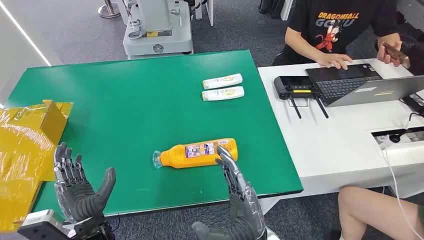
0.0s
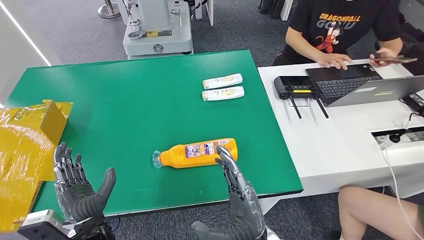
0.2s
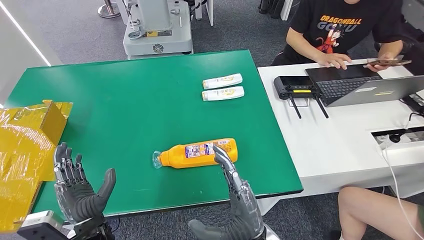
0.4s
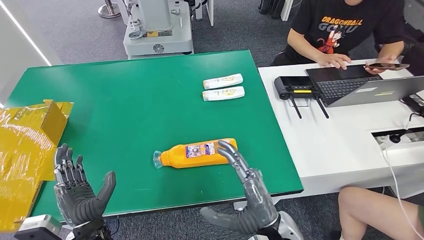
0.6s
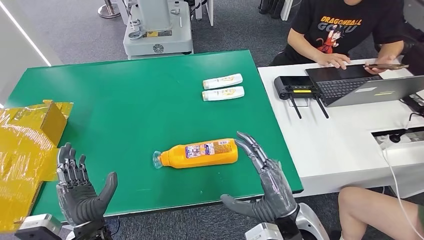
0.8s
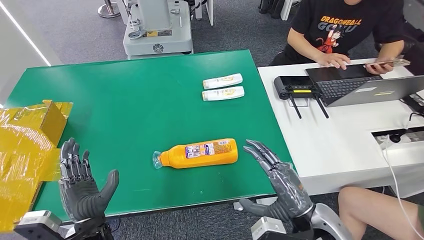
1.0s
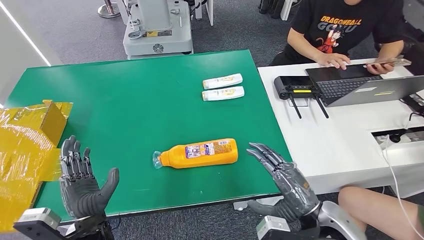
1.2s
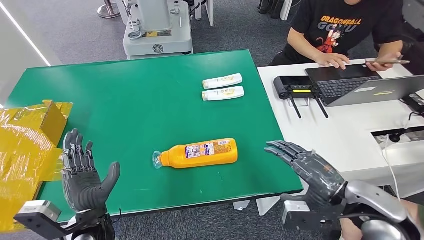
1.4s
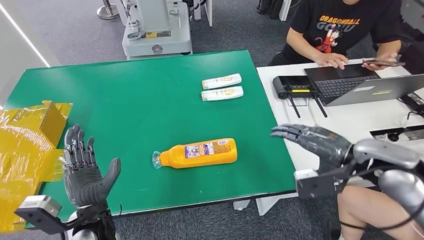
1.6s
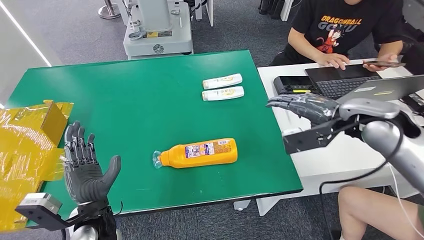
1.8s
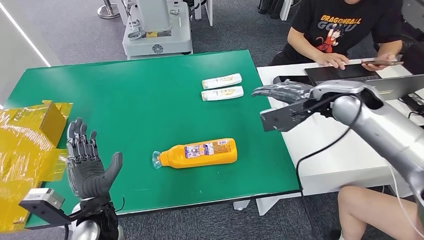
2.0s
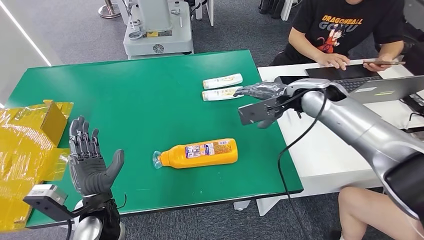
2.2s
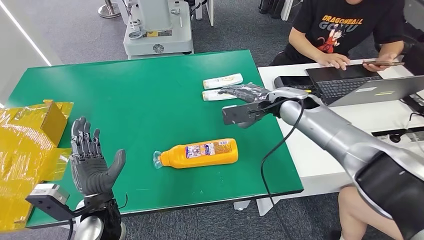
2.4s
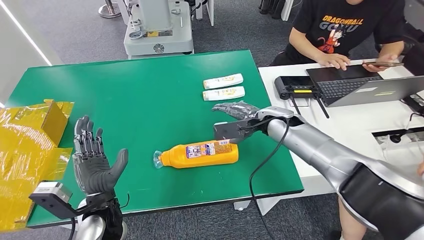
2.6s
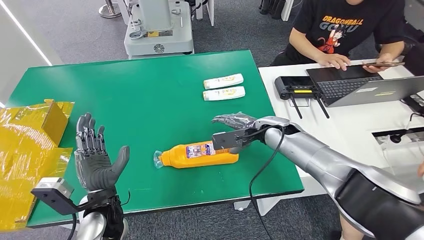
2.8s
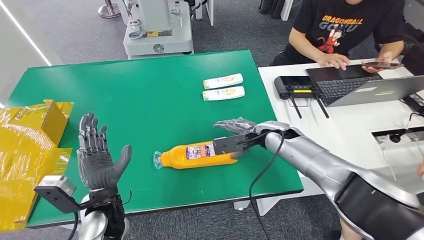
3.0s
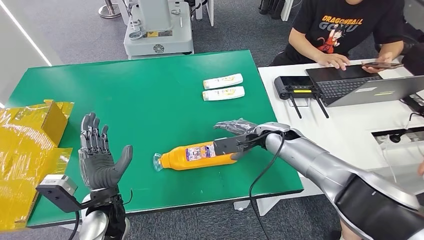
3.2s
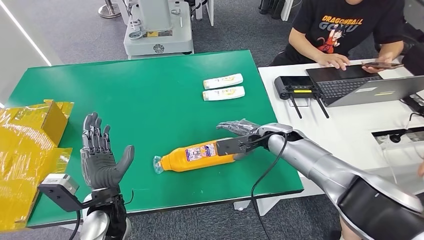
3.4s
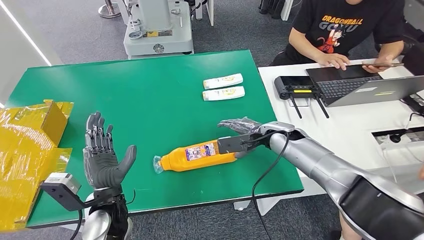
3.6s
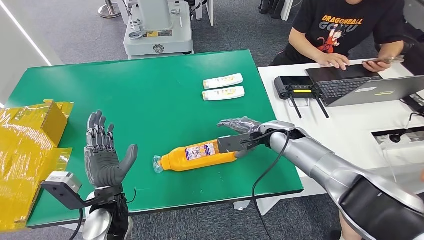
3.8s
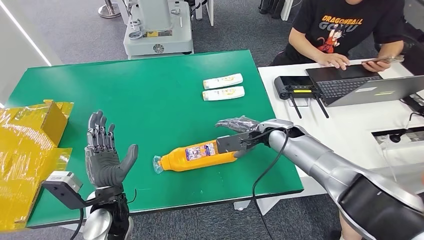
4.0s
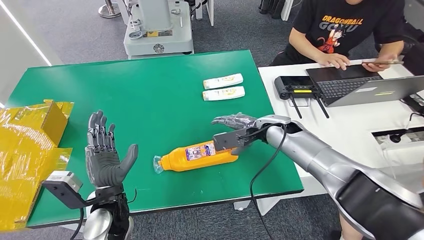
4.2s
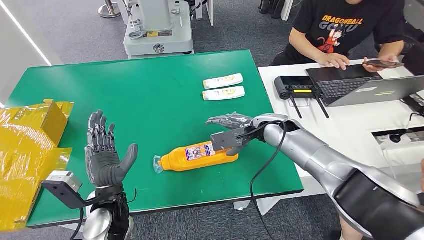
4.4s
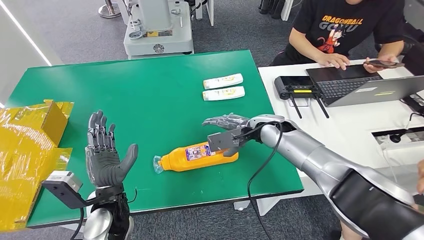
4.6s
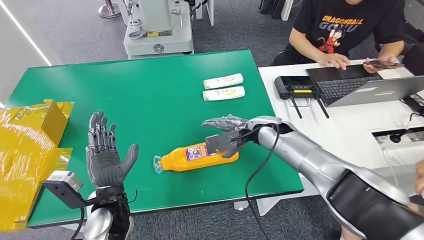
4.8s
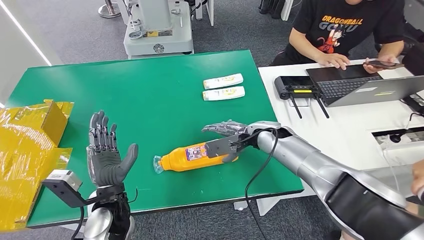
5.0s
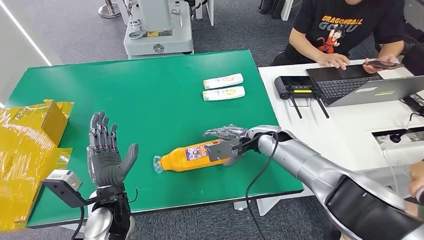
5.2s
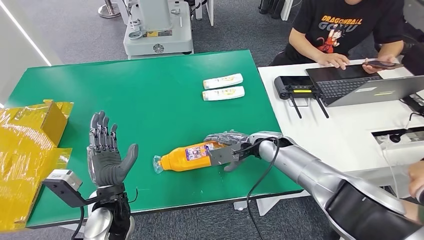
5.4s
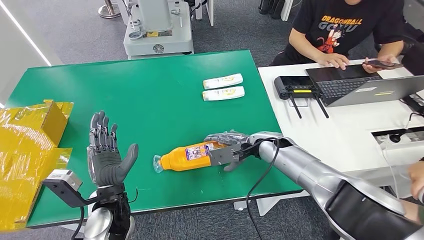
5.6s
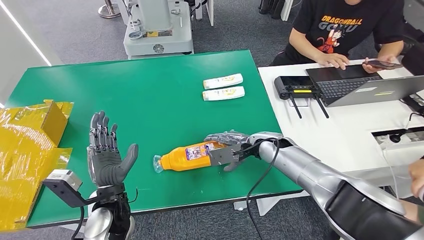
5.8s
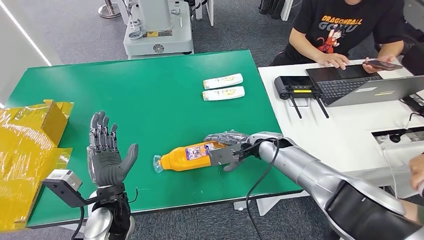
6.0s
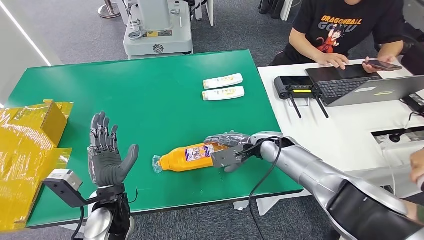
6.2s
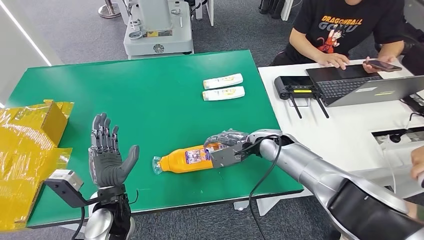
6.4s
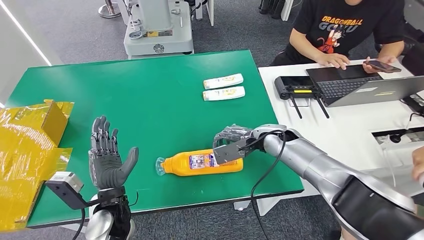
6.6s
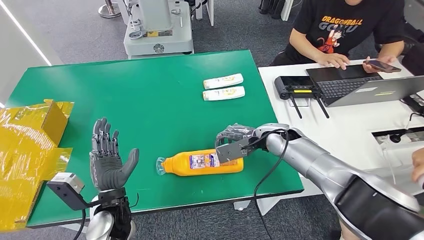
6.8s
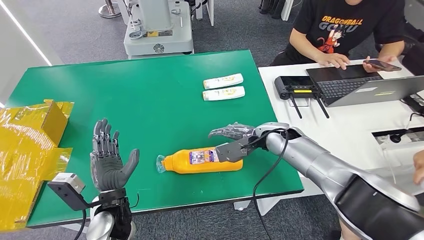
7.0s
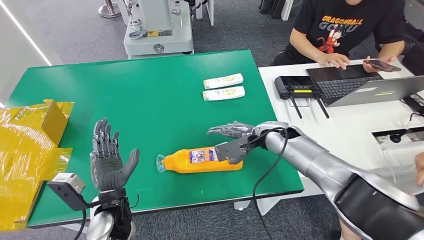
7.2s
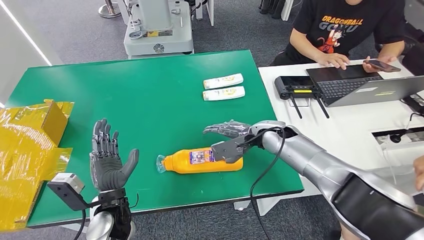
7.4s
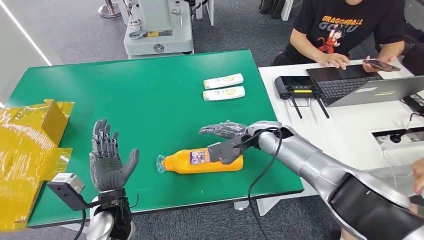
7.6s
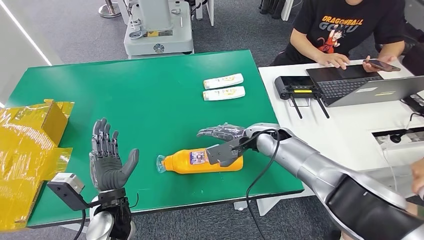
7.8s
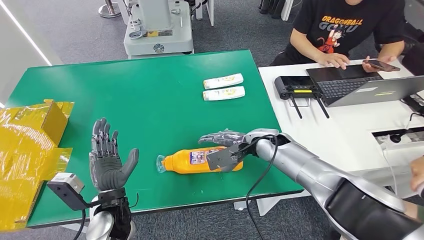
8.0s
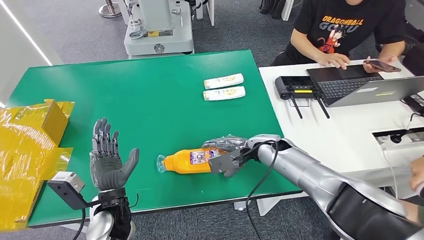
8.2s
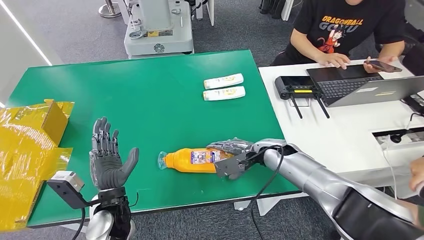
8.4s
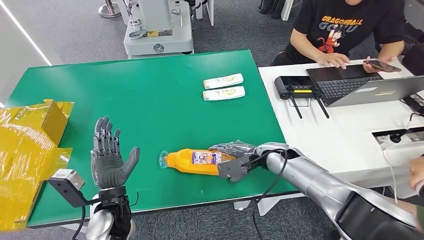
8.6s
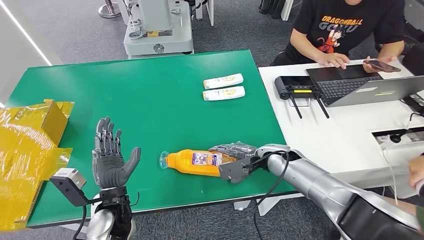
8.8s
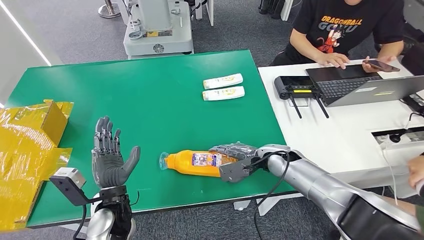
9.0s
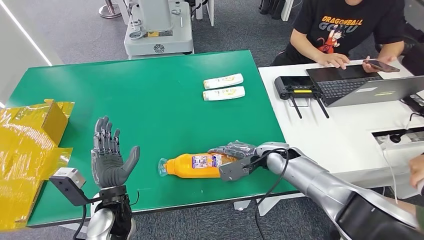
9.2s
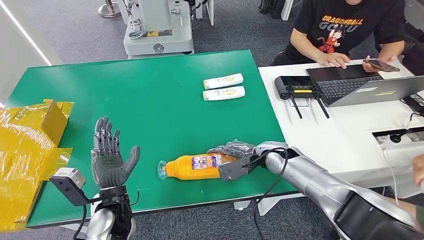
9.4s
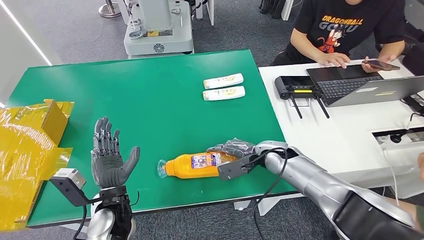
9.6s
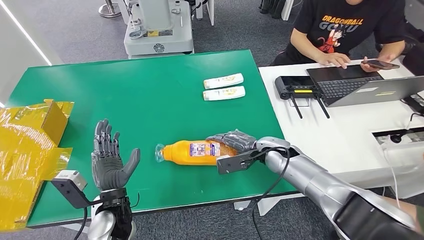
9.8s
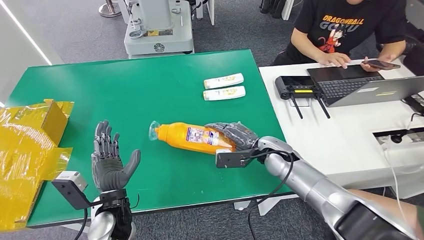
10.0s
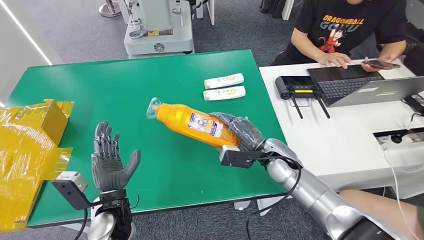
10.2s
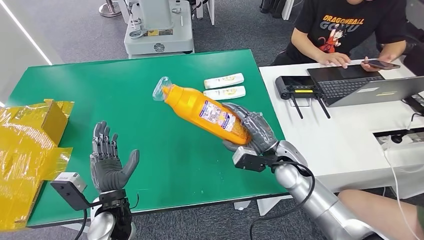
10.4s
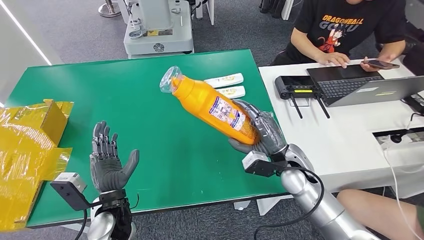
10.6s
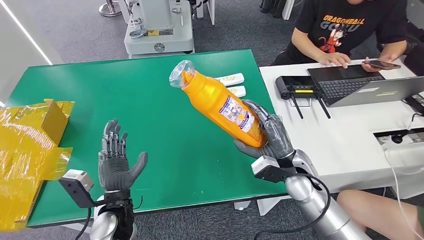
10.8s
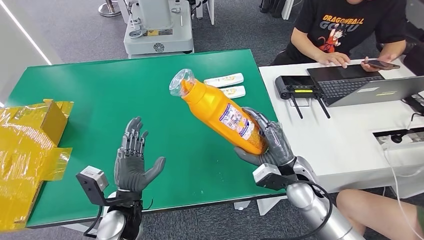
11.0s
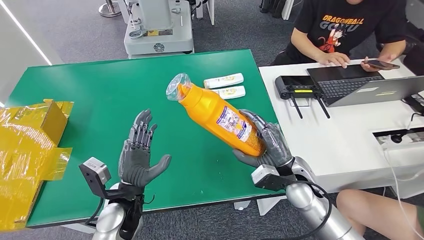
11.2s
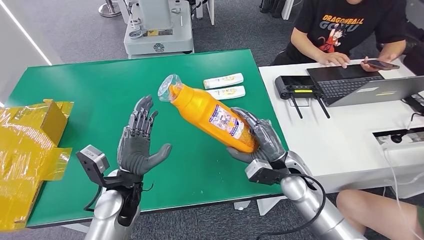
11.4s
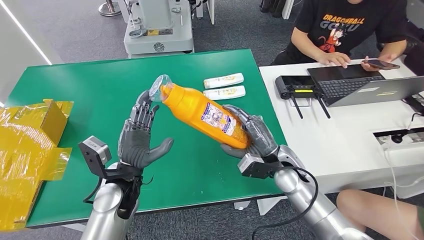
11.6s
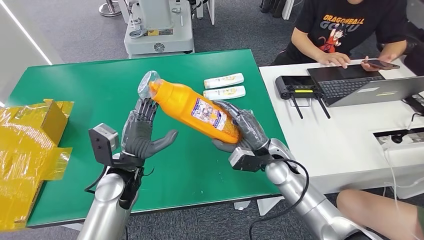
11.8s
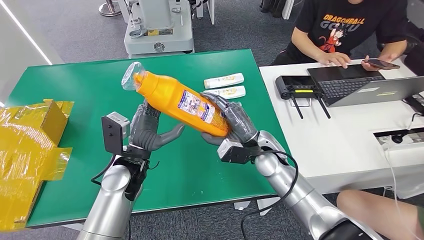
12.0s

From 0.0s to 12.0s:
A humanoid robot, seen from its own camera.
Step, from 0.0s to 10.0s: Pick up the bottle from the table.
From 3.0s to 4.4s: The hands stay close to where they were, moving slightly.
From 4.4s to 6.0s: The right hand travels downward by about 5 cm.
From 6.0s to 7.6s: The hands stay close to where they were, moving slightly.
From 7.6s to 9.0s: The right hand heads downward, covering about 5 cm.
From 10.4s to 12.0s: The left hand travels forward and upward by some 10 cm. The right hand moves to the left, some 5 cm.

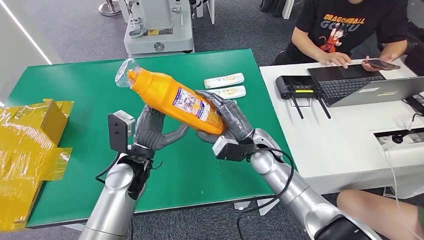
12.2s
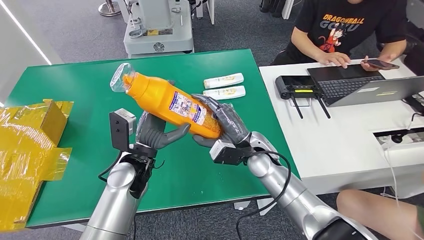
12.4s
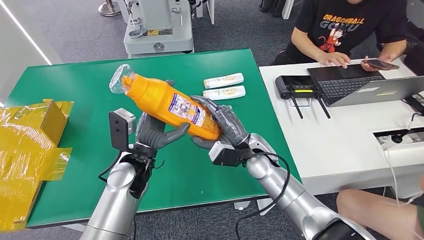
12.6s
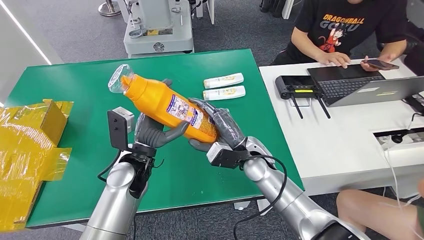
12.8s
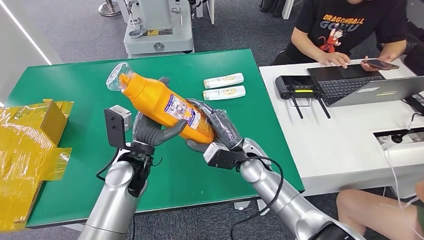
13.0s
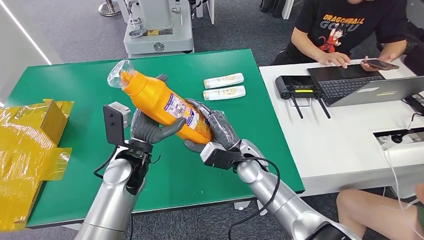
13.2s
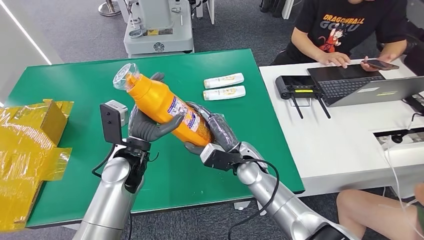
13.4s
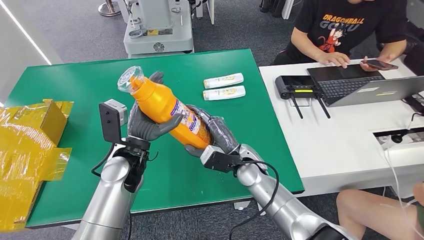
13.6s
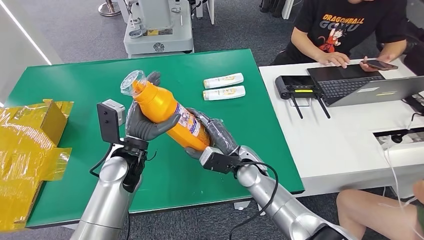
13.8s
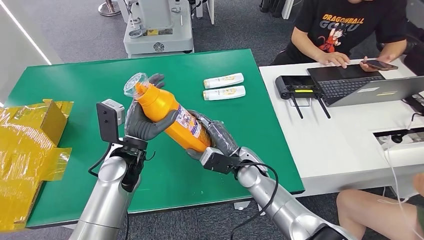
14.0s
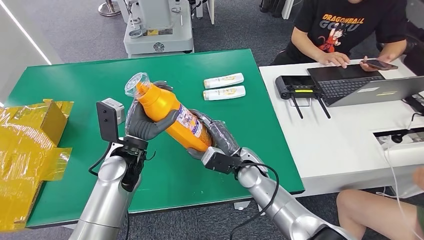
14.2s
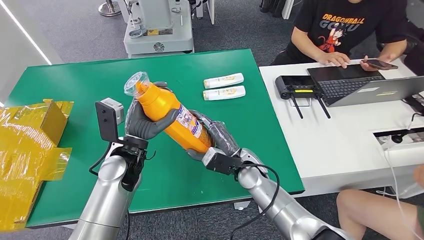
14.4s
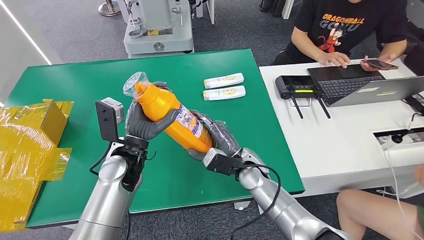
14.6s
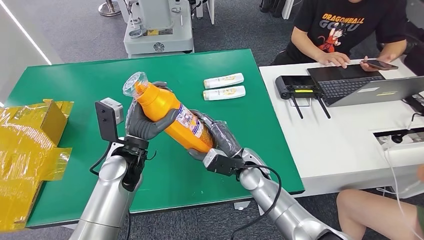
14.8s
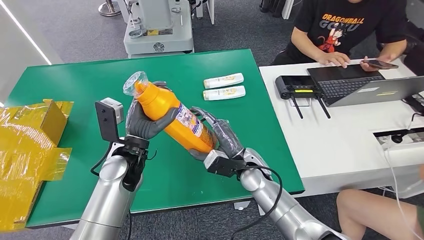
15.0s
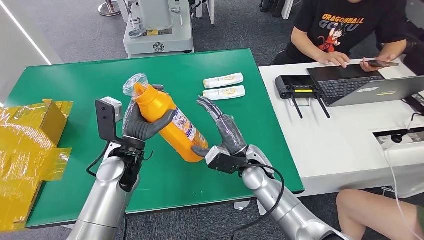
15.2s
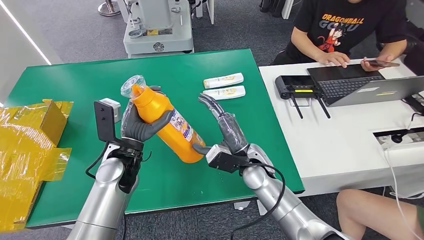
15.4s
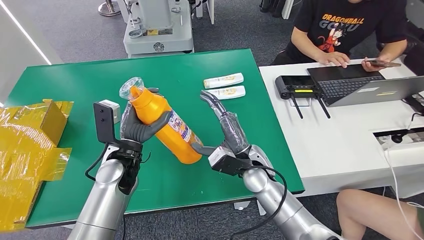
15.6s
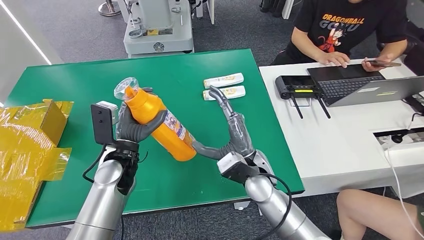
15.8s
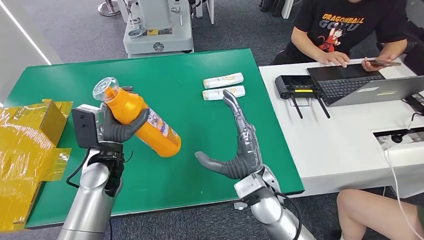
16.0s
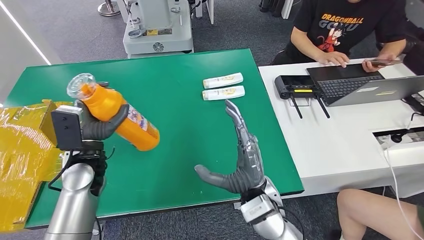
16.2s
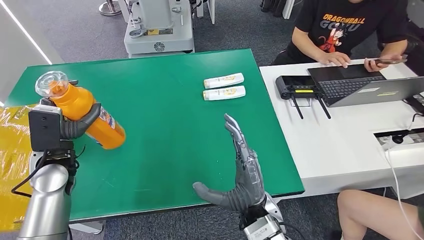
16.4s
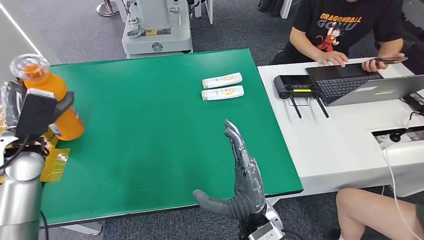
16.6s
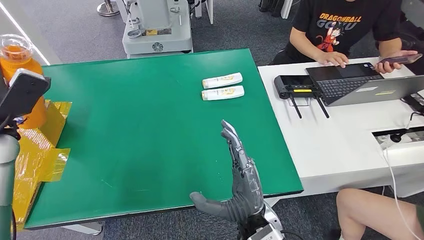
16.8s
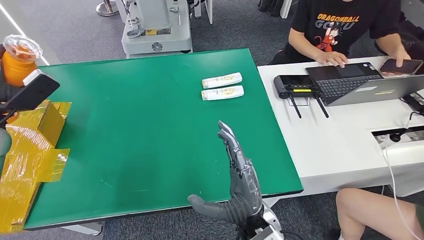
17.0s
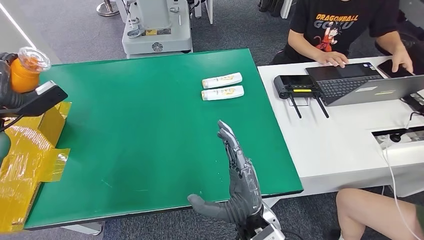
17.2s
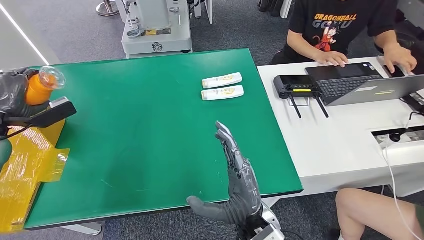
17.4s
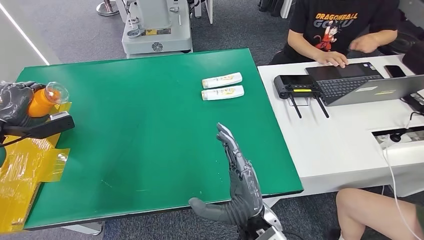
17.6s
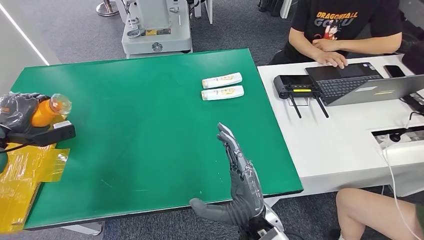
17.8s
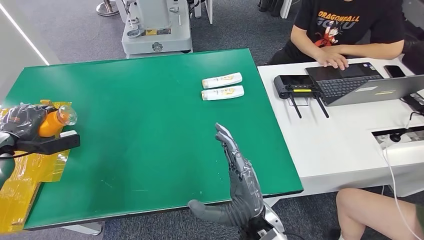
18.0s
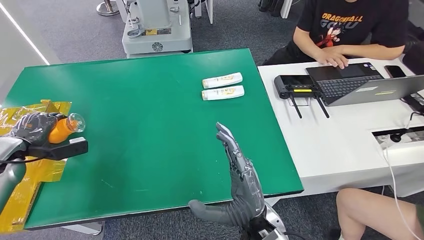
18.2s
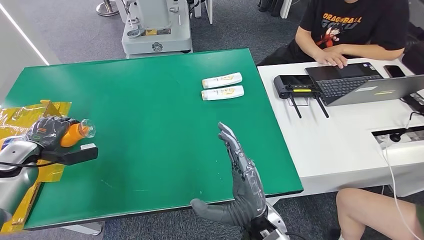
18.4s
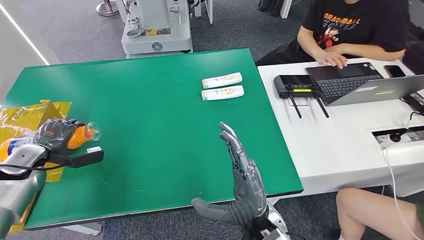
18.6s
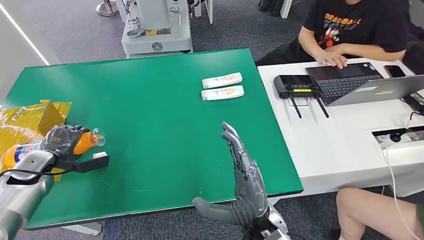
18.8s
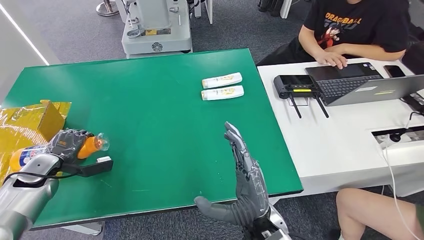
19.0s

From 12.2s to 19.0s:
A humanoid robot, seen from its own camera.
From 12.2s to 13.6s: The right hand ends up some 5 cm from where it was.
From 13.6s to 15.0s: There are only small adjustments of the hands.
From 17.6s to 19.0s: The left hand goes approximately 15 cm downward.
